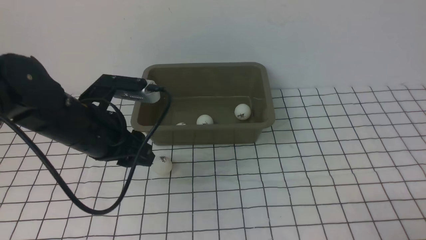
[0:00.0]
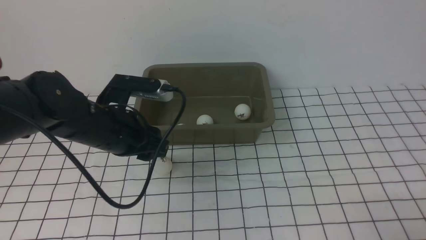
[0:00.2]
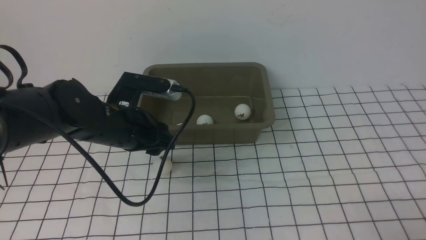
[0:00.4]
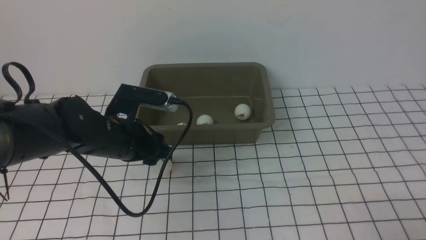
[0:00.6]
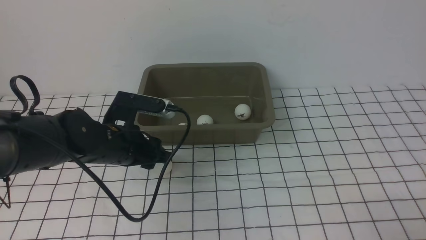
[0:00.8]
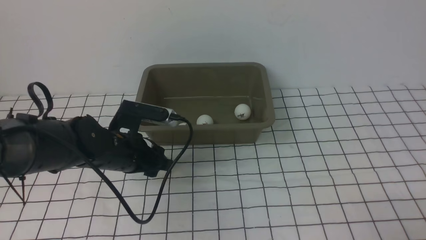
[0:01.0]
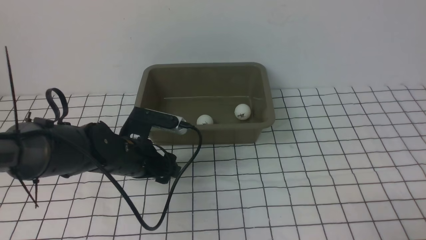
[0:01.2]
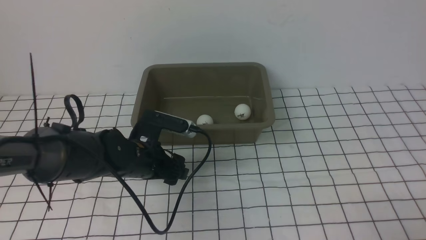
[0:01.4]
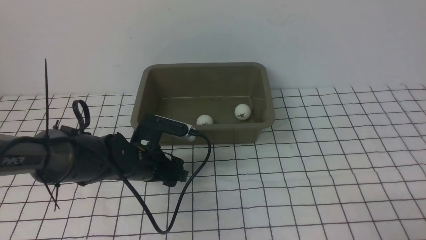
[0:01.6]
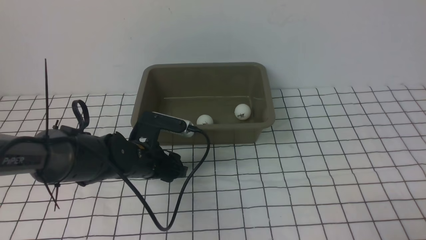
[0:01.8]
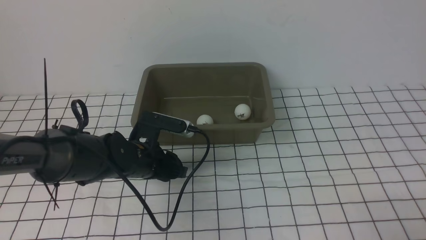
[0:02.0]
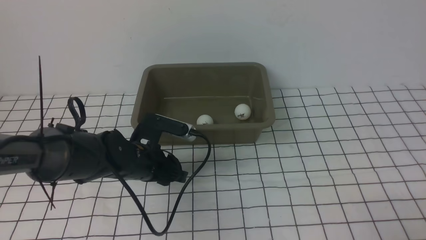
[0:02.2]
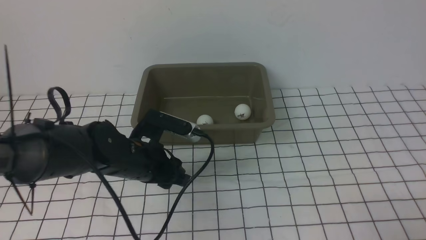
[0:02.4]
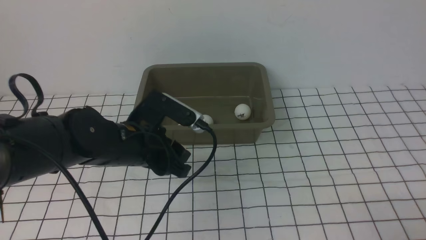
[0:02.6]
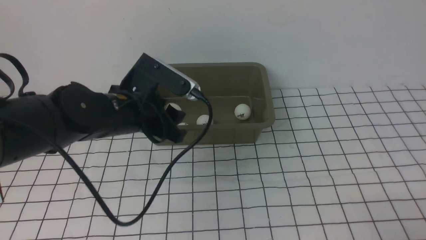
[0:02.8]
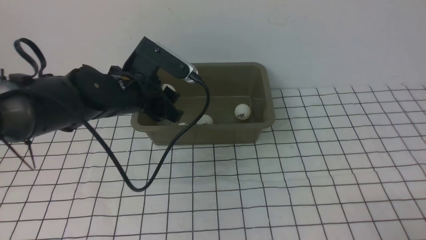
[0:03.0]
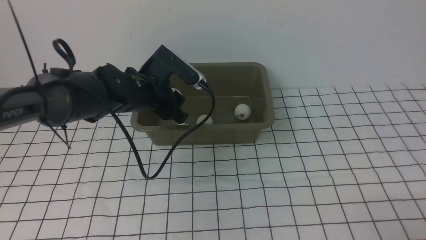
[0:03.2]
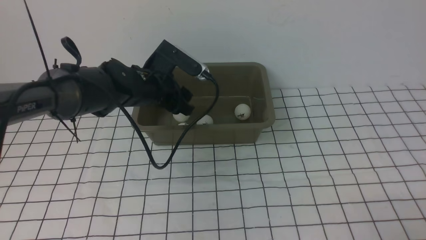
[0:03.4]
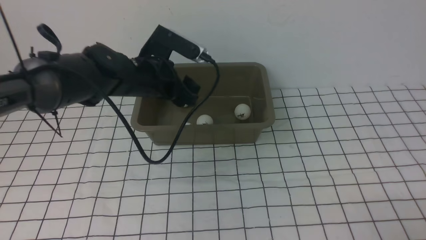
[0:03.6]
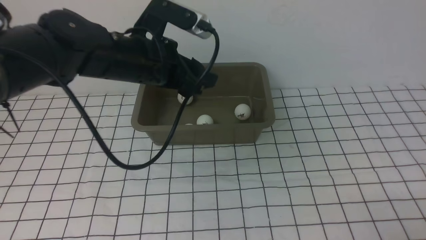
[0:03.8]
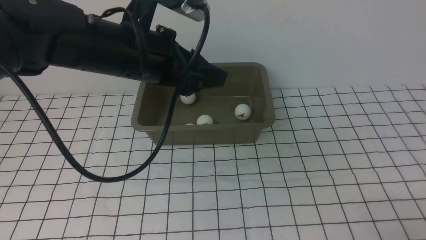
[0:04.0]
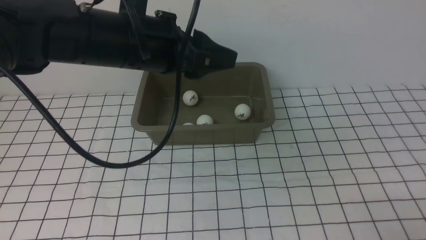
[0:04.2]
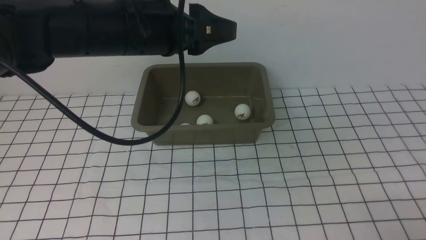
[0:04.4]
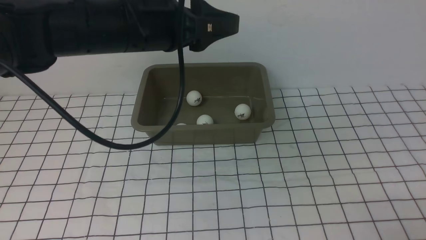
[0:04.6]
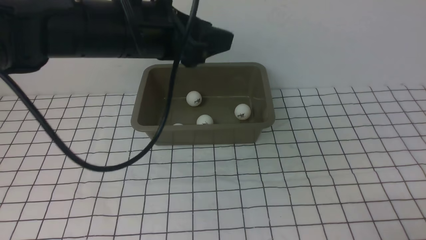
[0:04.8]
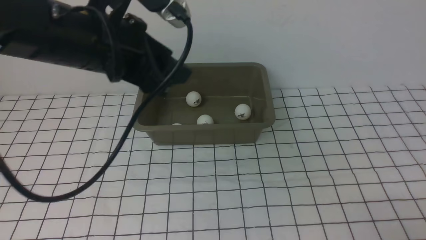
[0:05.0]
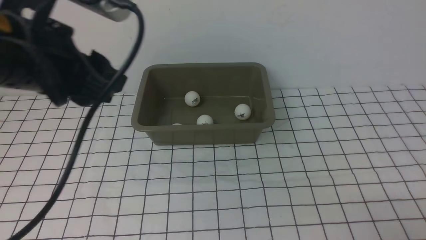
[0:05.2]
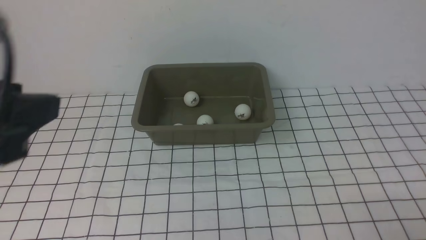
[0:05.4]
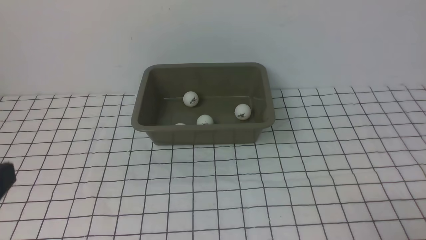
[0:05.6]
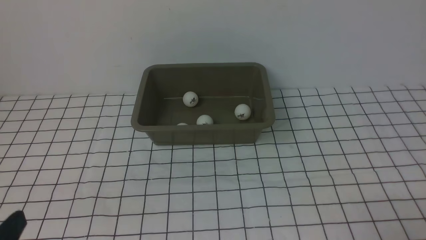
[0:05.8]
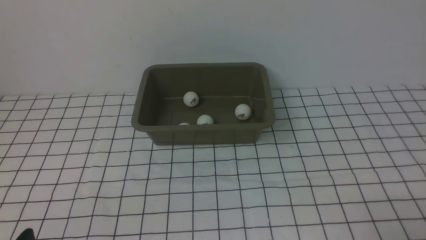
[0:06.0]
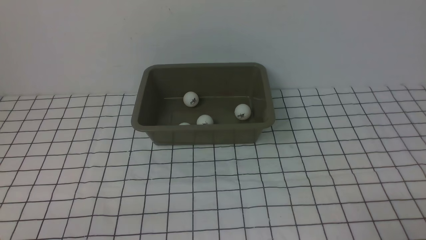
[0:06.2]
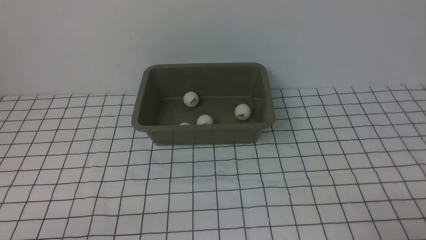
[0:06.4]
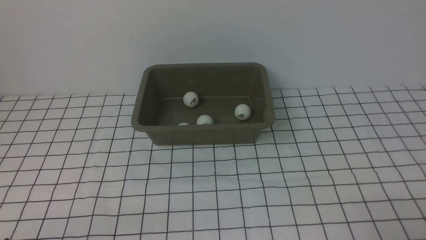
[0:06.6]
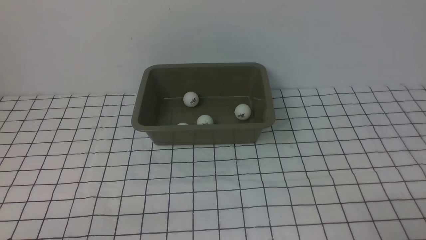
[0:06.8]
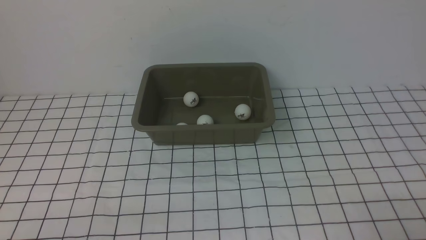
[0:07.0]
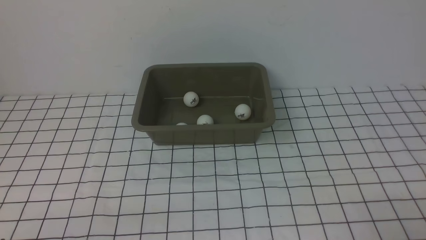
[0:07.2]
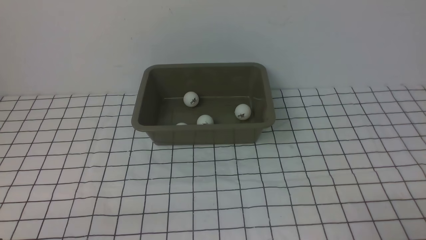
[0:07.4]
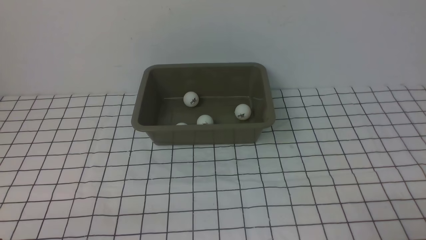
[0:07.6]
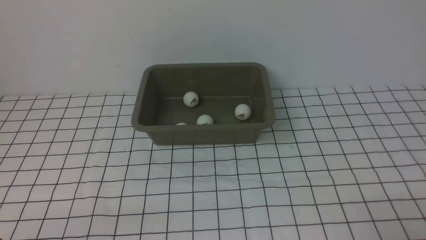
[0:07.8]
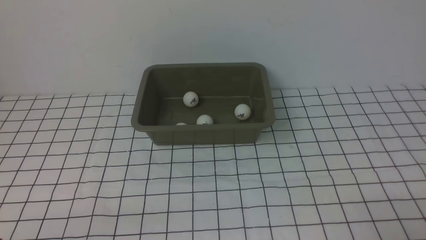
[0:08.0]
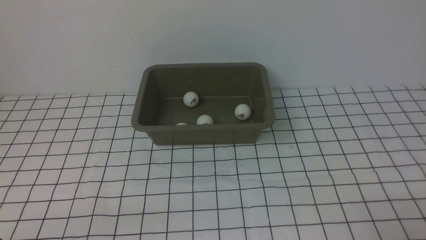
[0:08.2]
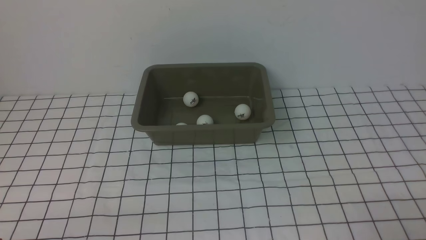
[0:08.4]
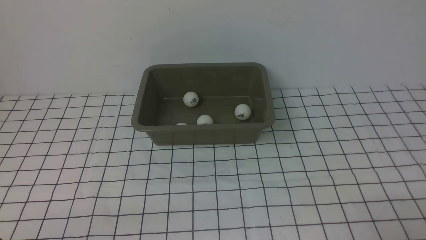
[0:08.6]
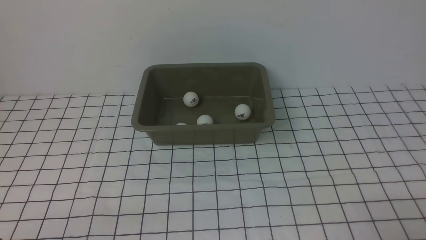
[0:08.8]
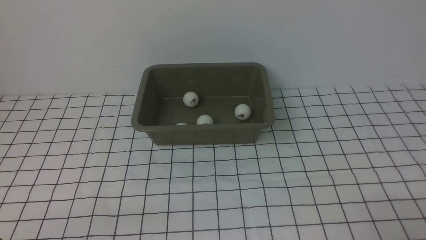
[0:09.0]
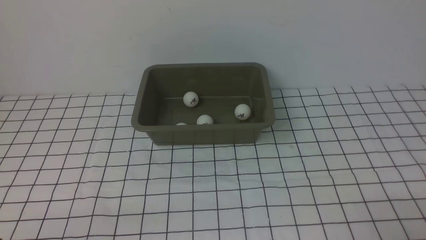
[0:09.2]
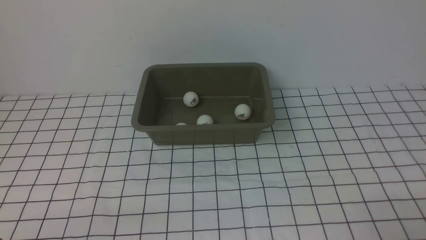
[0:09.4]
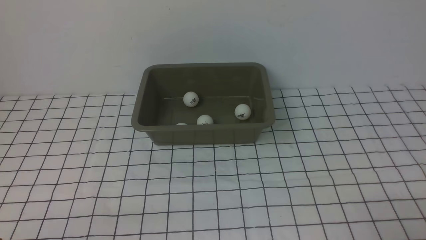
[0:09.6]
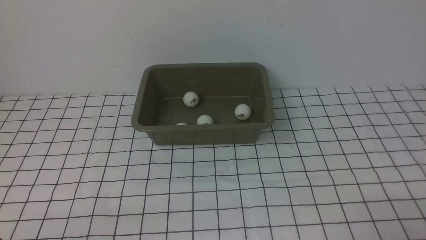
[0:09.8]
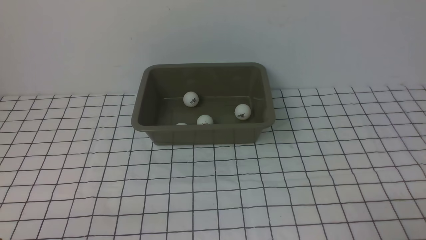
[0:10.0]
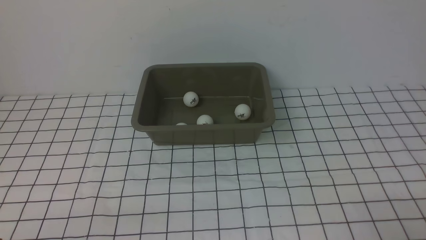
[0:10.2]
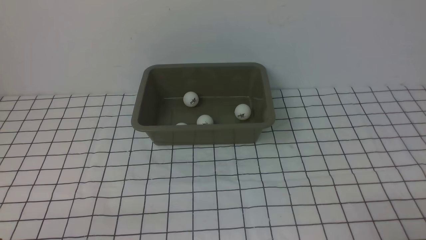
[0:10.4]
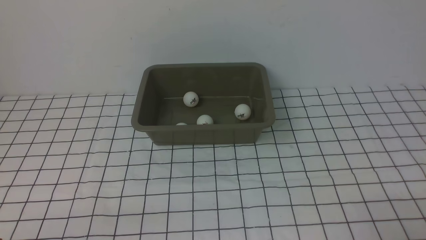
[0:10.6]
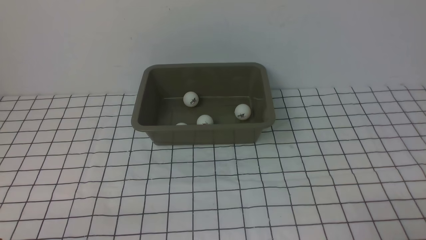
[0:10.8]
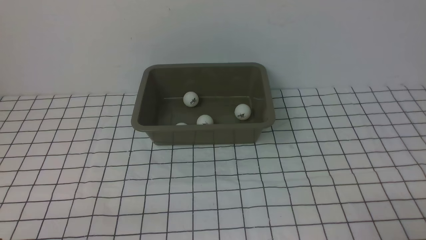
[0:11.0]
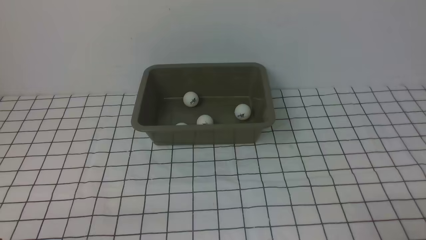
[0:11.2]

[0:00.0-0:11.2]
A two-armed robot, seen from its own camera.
Step, 0:00.0 to 0:02.4: use the left arm to clamp the table tennis ball closest to it.
Step, 0:02.6 to 0:03.6: use the left arm to put the table tennis ball into the box.
0:00.0 to 0:01.6: The left gripper is displaced downward by about 10 cm, and opens up.
0:01.6 to 0:03.2: The left gripper goes approximately 10 cm upward and forward, and closes up.
0:03.2 to 0:04.8: The left gripper travels upward and backward by some 20 cm.
0:04.8 to 0:06.4: The left gripper goes some 35 cm backward, downward and to the left.
0:08.0 to 0:11.2: The two grippers keep their place.
